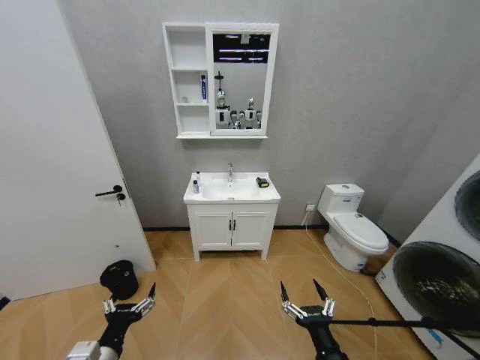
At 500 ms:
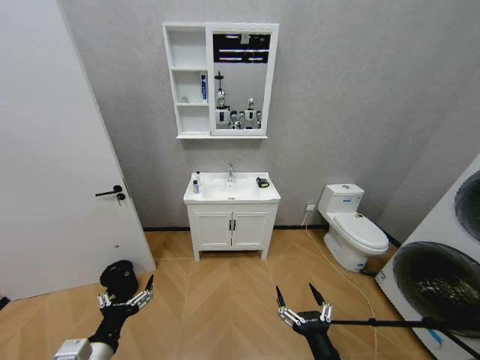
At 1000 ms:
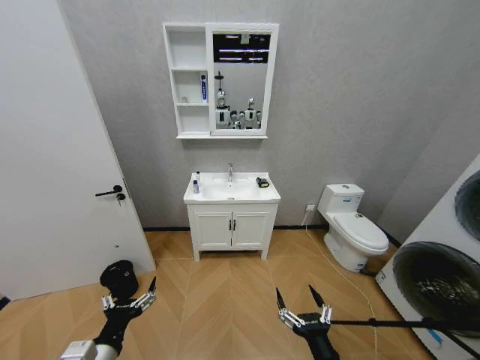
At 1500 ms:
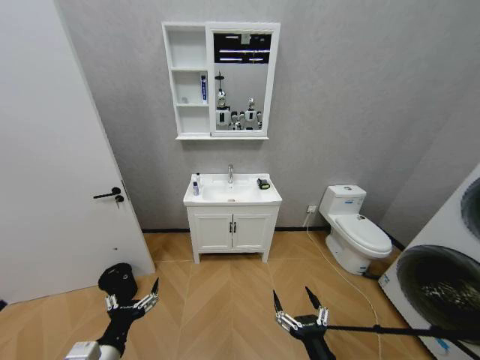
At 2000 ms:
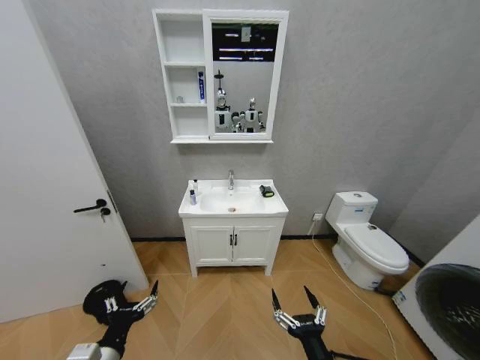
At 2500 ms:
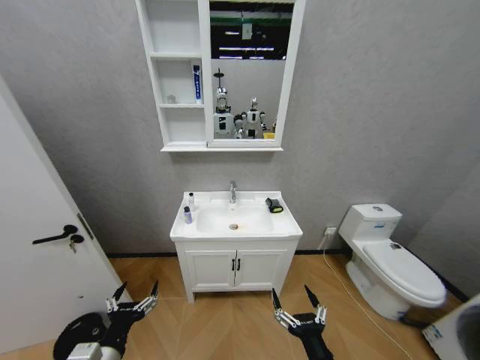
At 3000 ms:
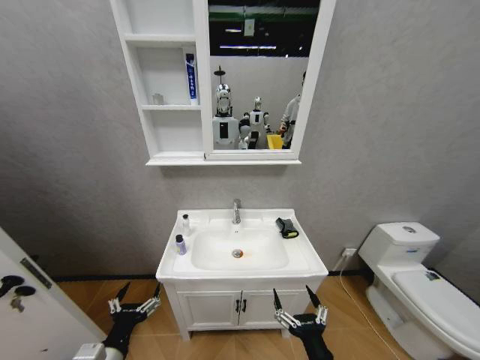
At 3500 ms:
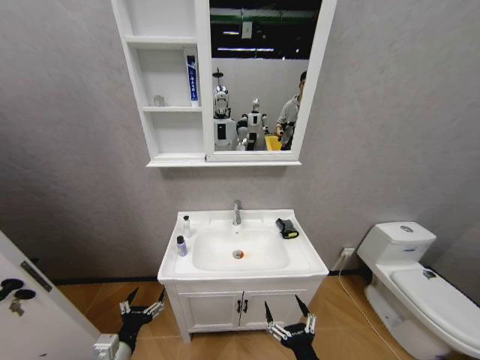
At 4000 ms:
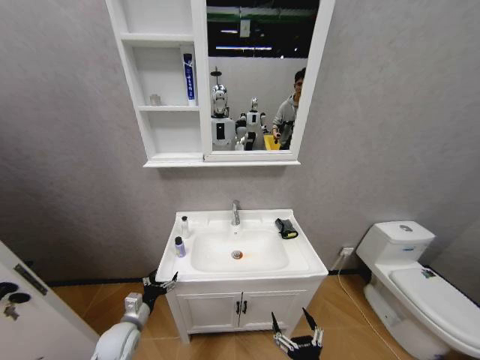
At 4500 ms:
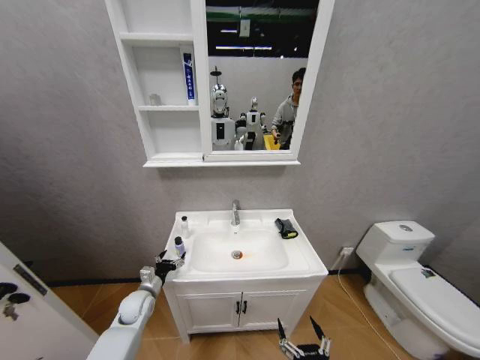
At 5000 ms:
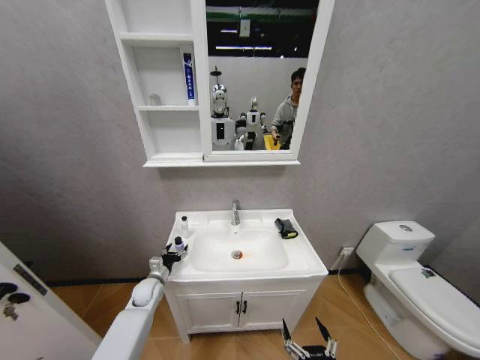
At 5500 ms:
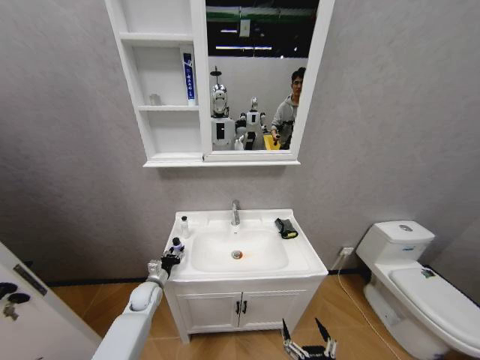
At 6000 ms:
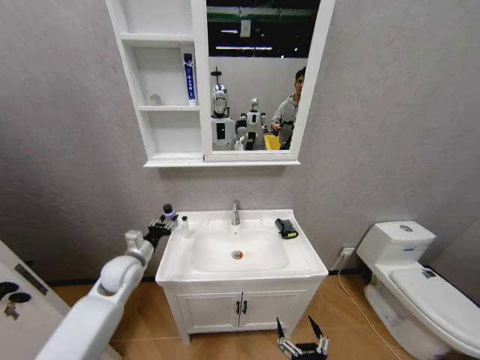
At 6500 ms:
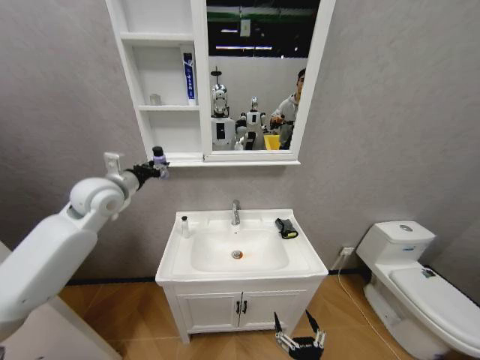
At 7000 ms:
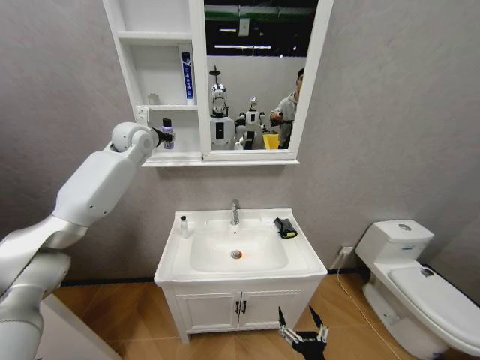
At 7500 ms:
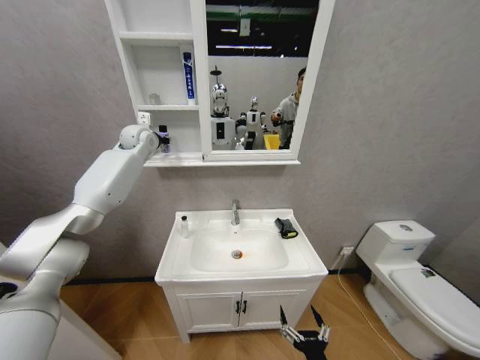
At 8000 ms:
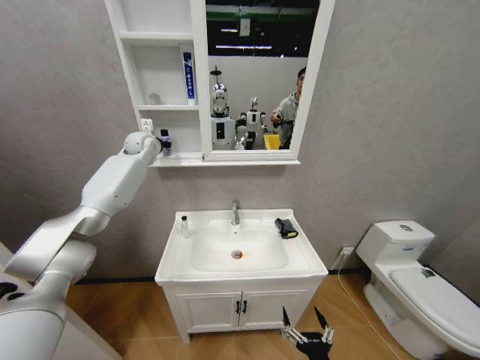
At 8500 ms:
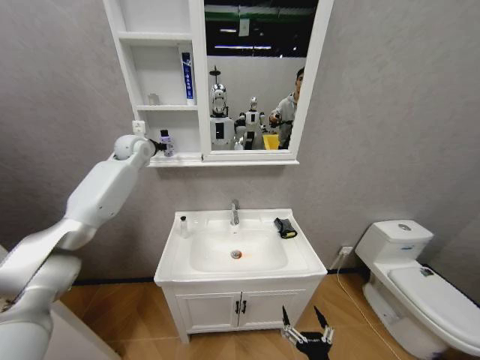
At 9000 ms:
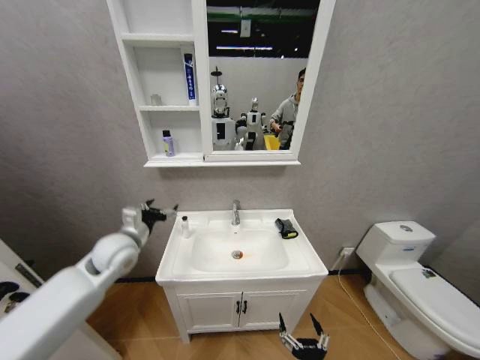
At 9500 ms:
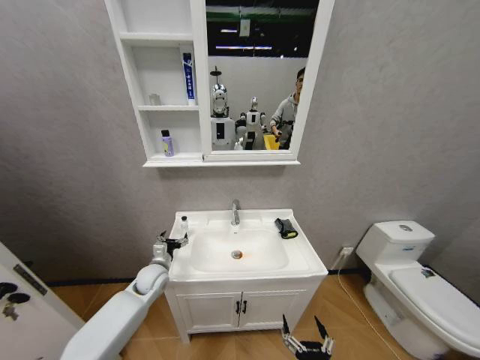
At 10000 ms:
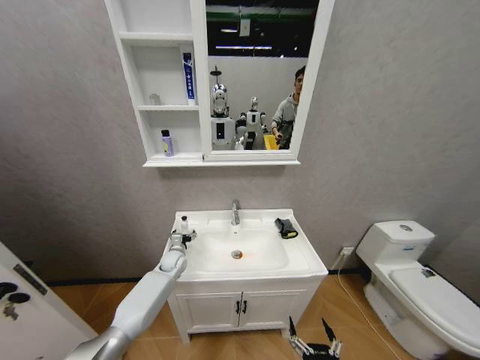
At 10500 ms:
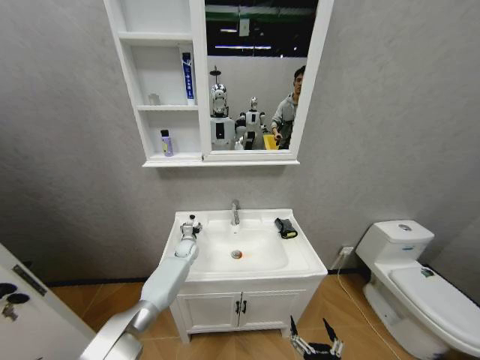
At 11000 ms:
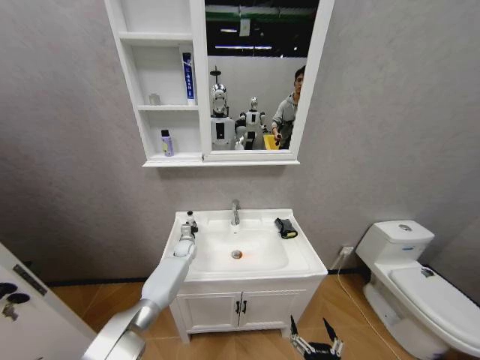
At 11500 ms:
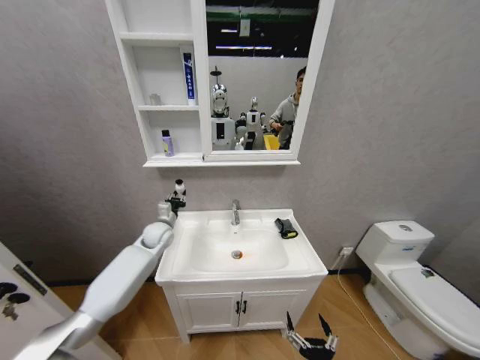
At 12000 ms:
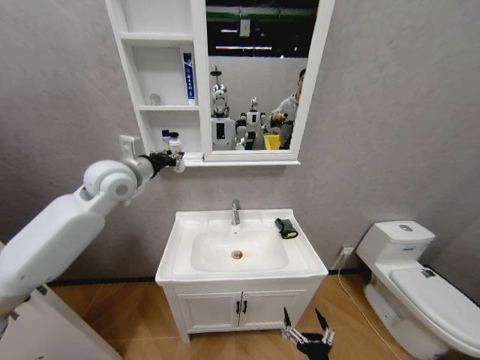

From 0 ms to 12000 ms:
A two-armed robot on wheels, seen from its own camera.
Task of the whole recording: Move facial cleanser and shampoo from washbasin to cabinet, then wipe washbasin with towel.
From 2000 ms to 4000 ms: The right gripper travels downward by some 5 cm. Meanwhile the left gripper is displaced forward and downward by roughly 20 cm.
From 4000 ms to 6000 ms: The left gripper shifts about 20 cm upward and forward, and closes.
From 6000 ms to 8000 ms: The left gripper moves forward and upward, some 40 cm.
From 8000 ms to 10000 ms: The left gripper shifts about 40 cm downward, and opens its fingers.
From 10000 ms to 12000 ms: The left gripper heads upward, covering about 40 cm, and closes up.

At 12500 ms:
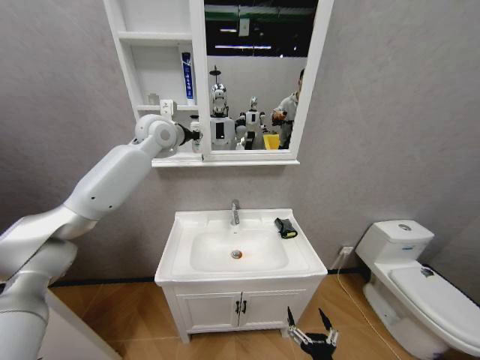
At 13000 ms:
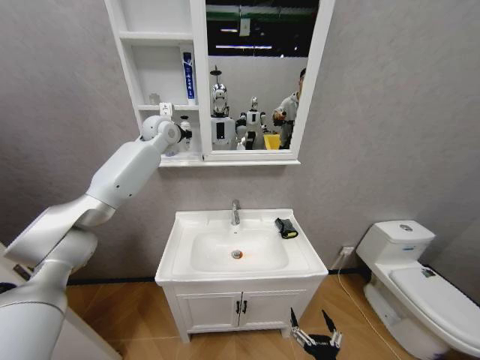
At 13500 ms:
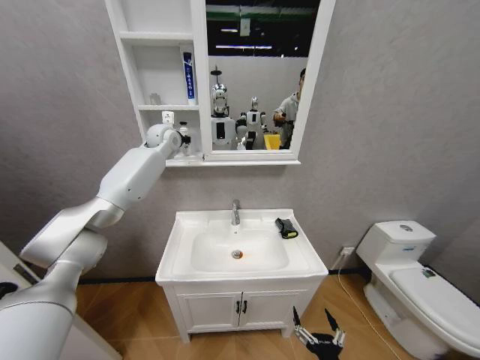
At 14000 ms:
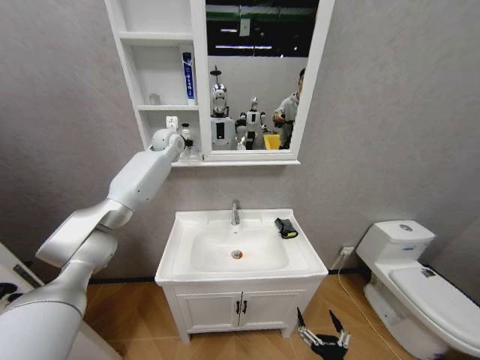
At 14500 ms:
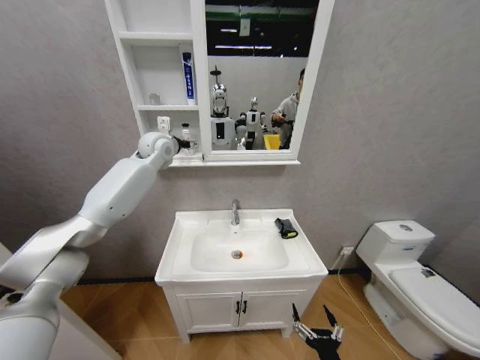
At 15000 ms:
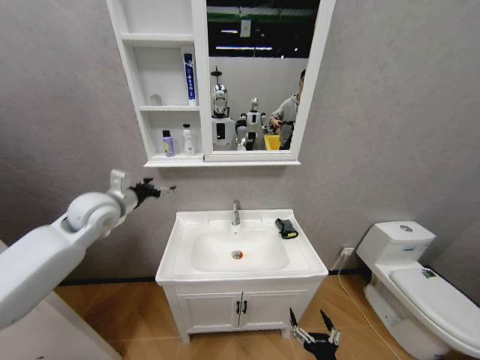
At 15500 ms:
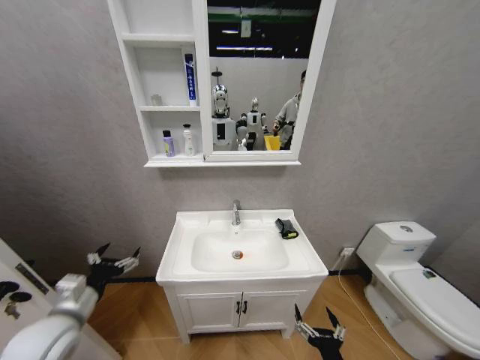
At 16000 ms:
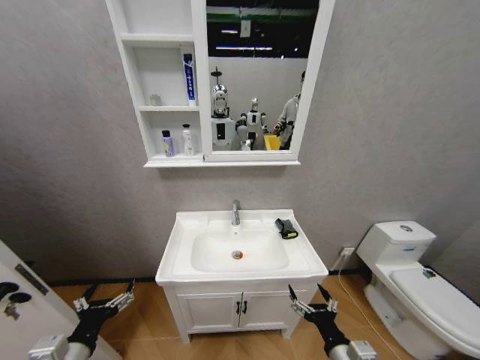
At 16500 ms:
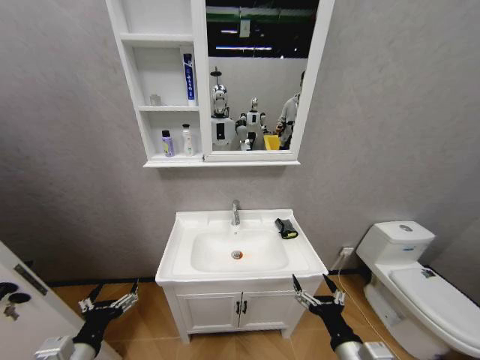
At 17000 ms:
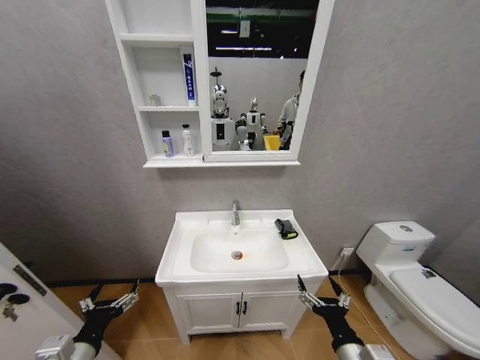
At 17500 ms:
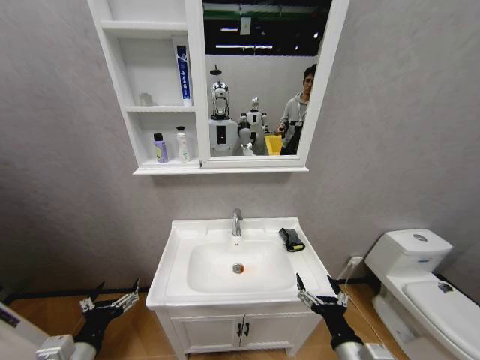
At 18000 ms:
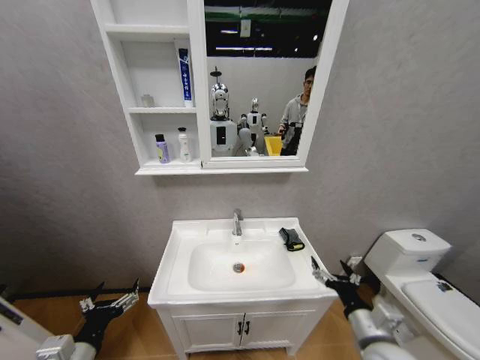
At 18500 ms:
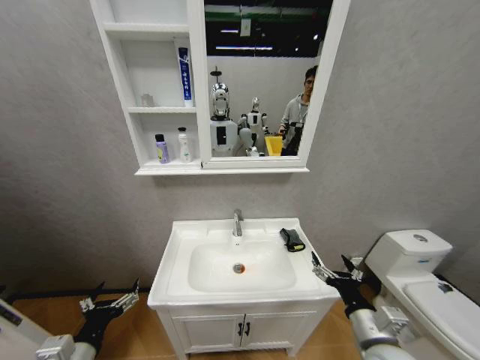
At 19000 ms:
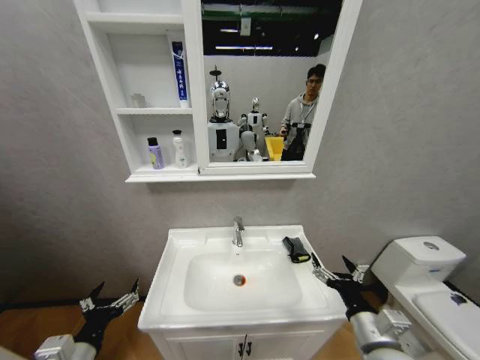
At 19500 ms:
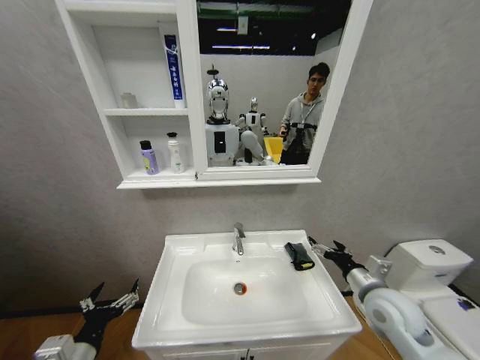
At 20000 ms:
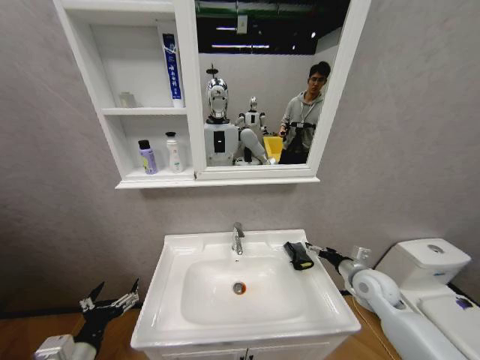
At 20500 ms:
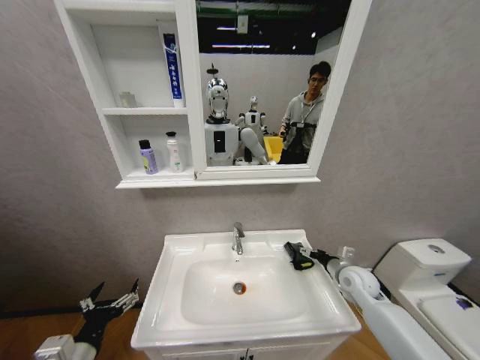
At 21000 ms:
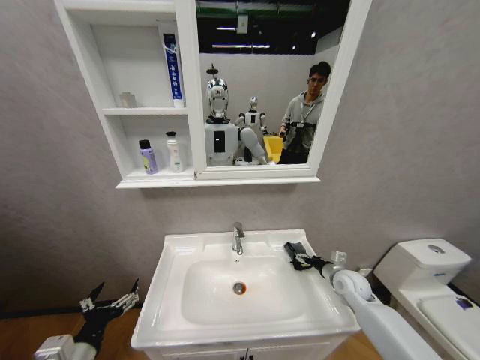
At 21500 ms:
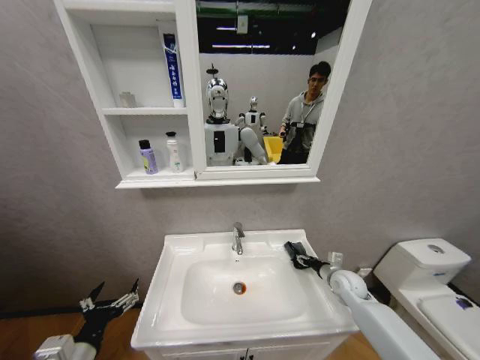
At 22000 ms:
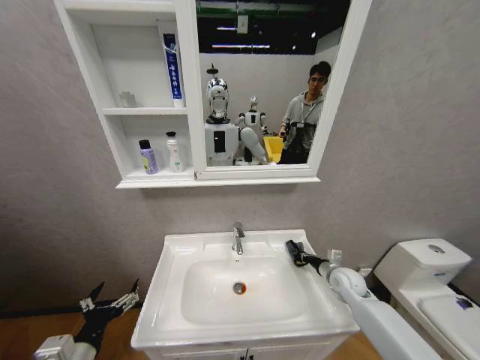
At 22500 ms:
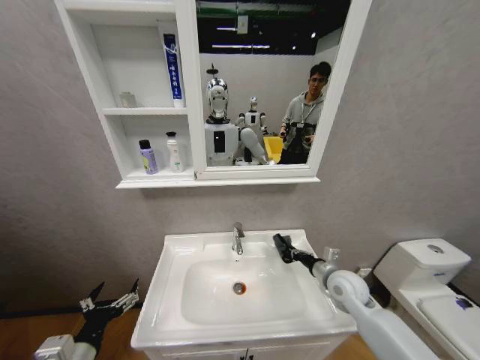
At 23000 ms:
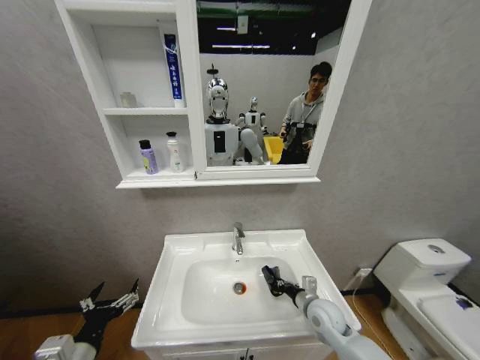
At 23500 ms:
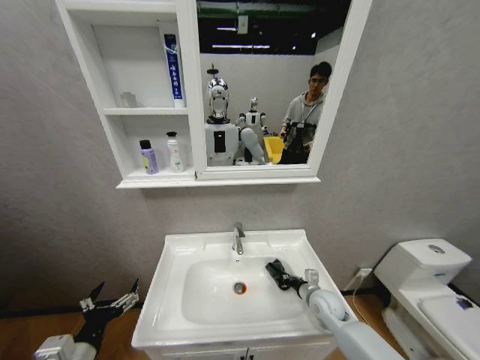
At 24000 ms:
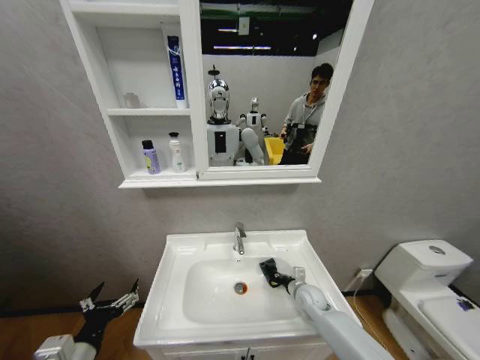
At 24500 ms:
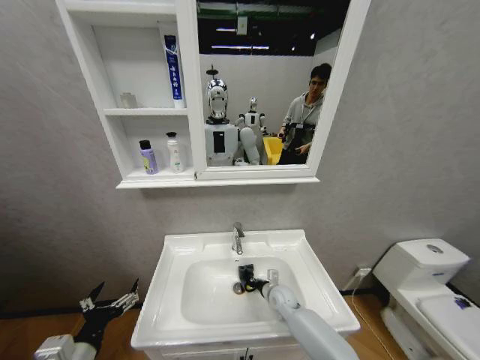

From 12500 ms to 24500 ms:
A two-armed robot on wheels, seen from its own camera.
Task of the whole recording: Move facial cleanser and shampoo from washbasin to cabinet, then wipe washbasin with towel.
From 12500 ms to 14500 ms: The left gripper heads downward, covering approximately 5 cm, travels forward and back again, some 10 cm each way, and opens up.
From 14500 ms to 16500 ms: The left gripper goes approximately 50 cm backward and downward. Meanwhile the right gripper shifts some 10 cm upward.
From 16500 ms to 18500 ms: The right gripper heads forward, covering roughly 5 cm.
From 18500 ms to 20500 ms: The right gripper shifts some 20 cm forward and to the right.
From 20500 ms to 22500 ms: The right gripper travels to the left by some 5 cm, and closes its fingers.
From 22500 ms to 24500 ms: The right gripper is displaced downward and to the left by about 20 cm.

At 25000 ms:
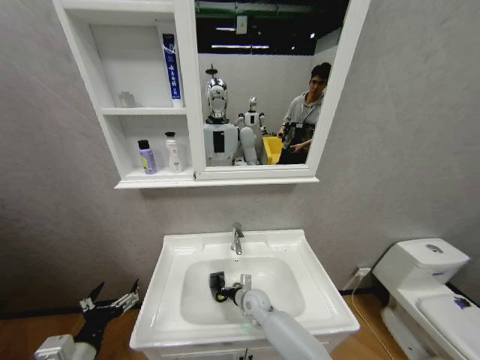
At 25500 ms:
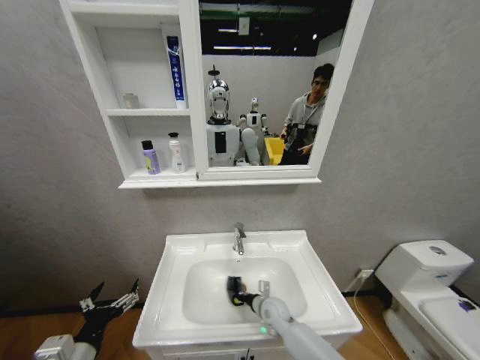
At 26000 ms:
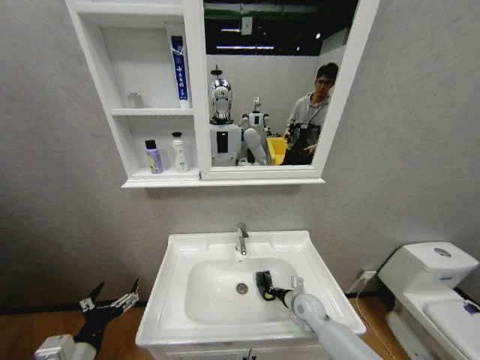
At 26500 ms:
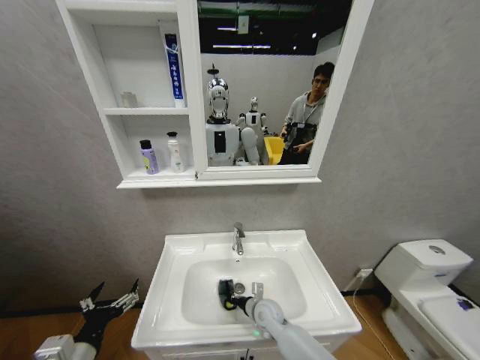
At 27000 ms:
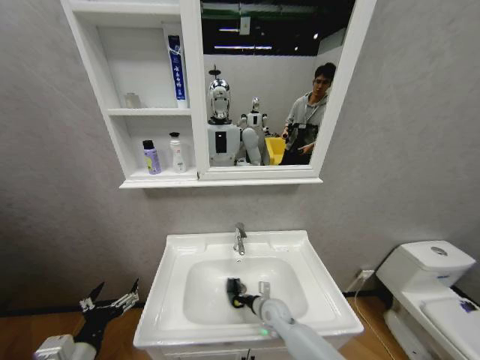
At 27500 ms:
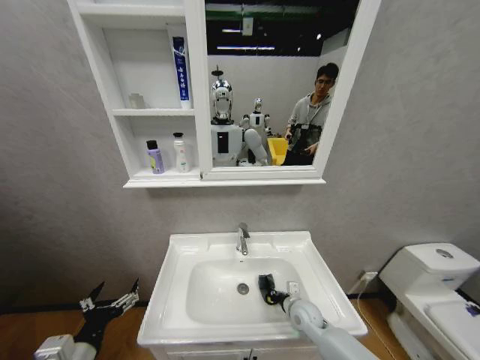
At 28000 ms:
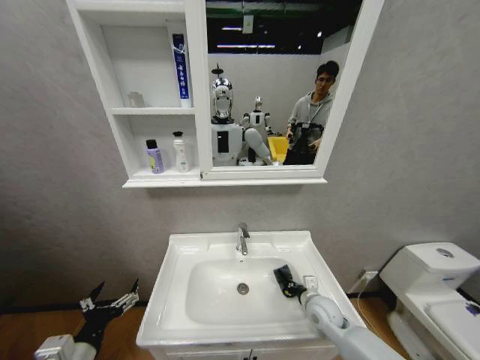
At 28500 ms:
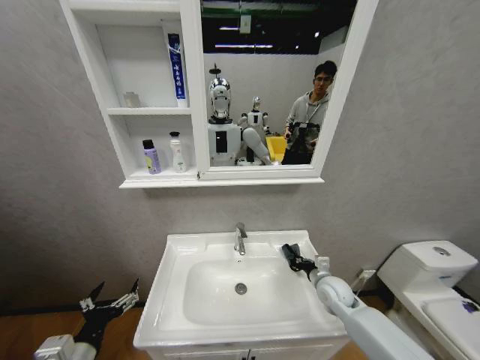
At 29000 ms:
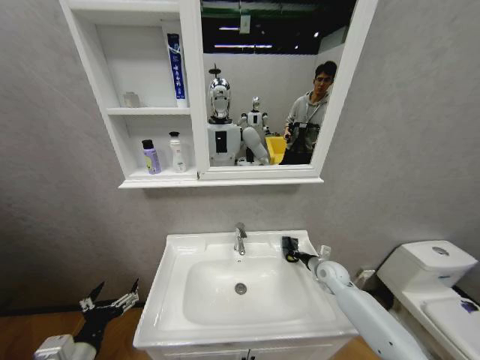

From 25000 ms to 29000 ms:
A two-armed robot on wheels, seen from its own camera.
Task of the whole recording: Move facial cleanser and shampoo from washbasin to cabinet, then wipe washbasin with towel.
From 25000 ms to 27000 ms: The right gripper moves left and right over some 15 cm, changing direction 2 times.
From 27000 ms to 29000 ms: The right gripper is displaced to the right, upward and forward by approximately 25 cm.
